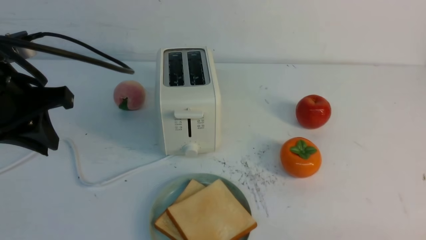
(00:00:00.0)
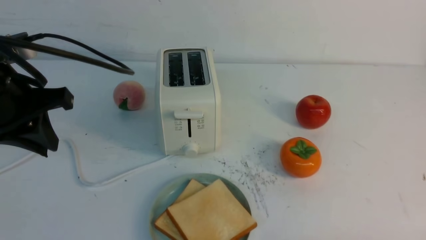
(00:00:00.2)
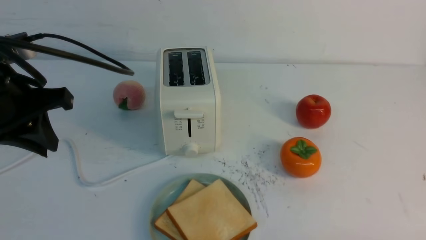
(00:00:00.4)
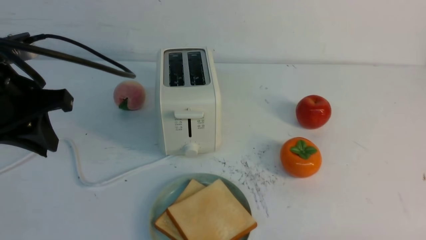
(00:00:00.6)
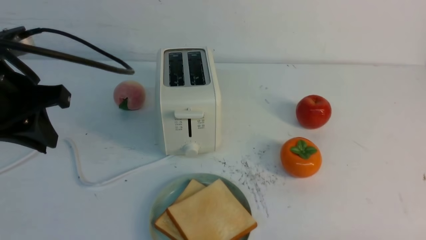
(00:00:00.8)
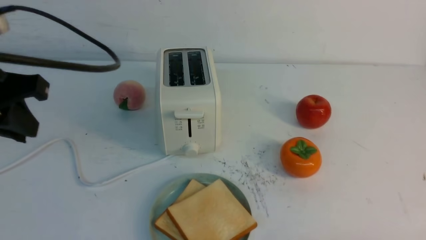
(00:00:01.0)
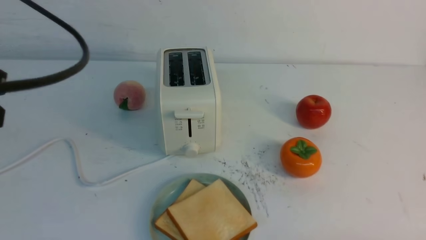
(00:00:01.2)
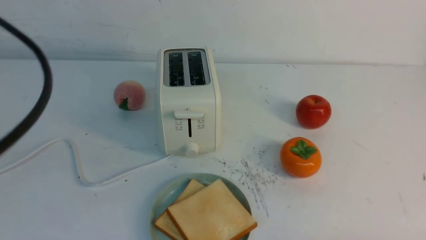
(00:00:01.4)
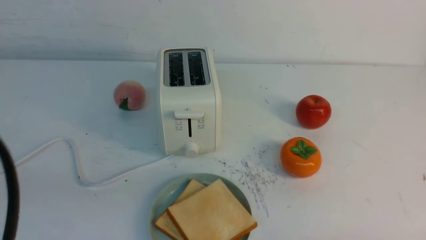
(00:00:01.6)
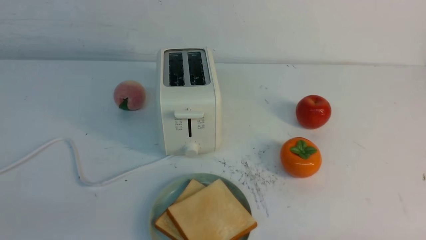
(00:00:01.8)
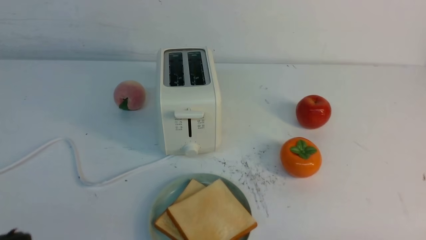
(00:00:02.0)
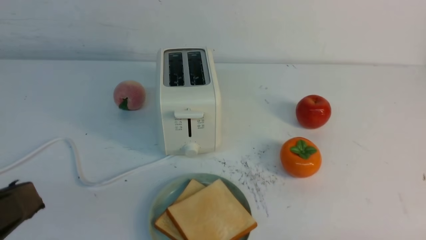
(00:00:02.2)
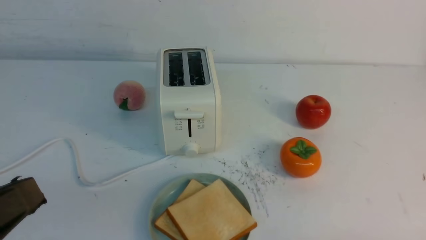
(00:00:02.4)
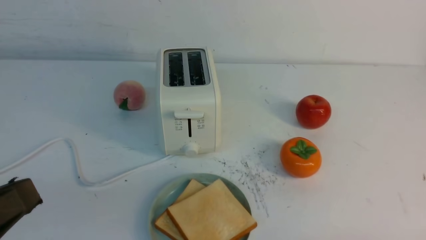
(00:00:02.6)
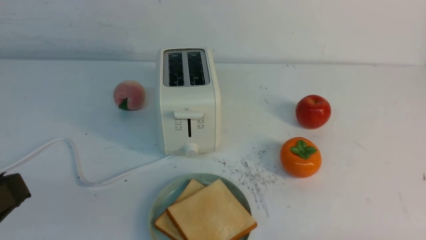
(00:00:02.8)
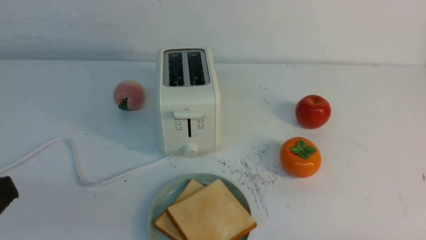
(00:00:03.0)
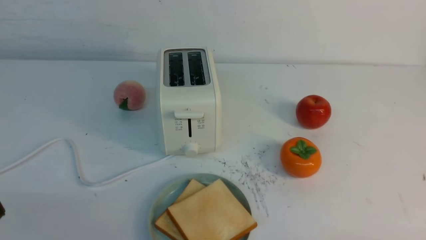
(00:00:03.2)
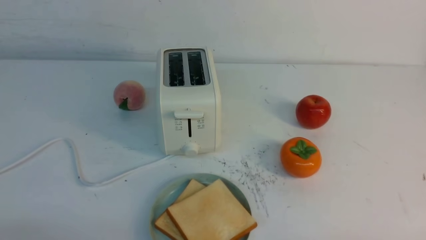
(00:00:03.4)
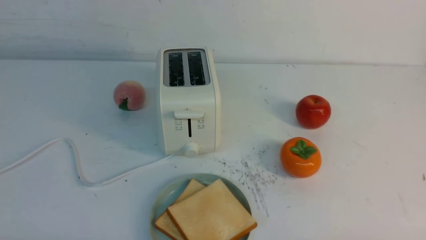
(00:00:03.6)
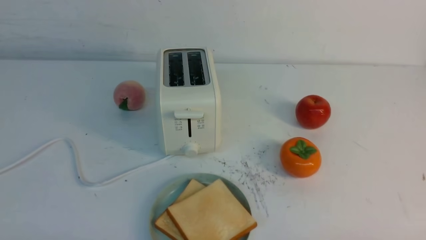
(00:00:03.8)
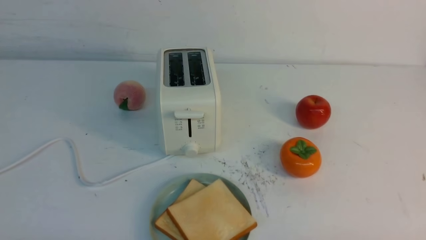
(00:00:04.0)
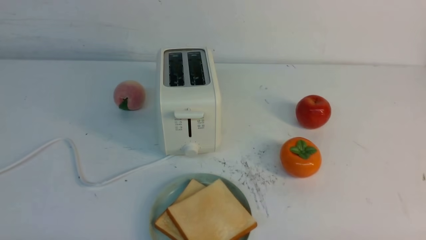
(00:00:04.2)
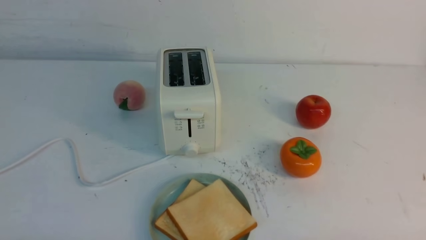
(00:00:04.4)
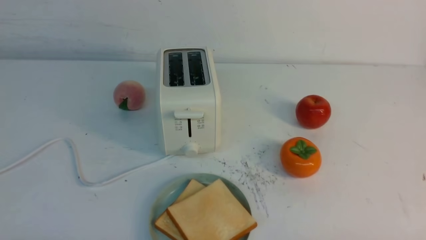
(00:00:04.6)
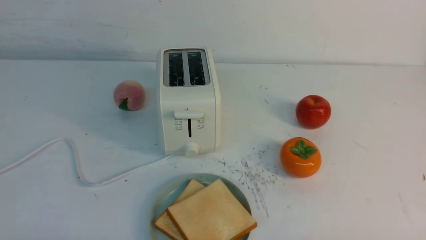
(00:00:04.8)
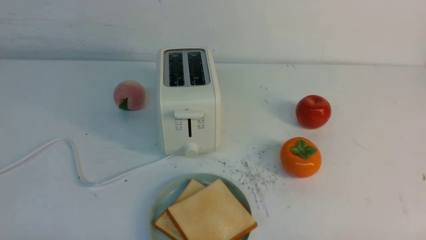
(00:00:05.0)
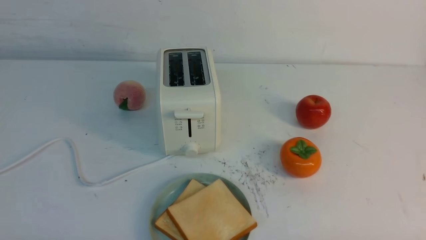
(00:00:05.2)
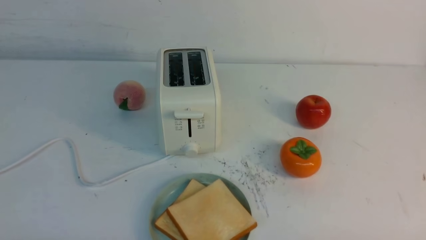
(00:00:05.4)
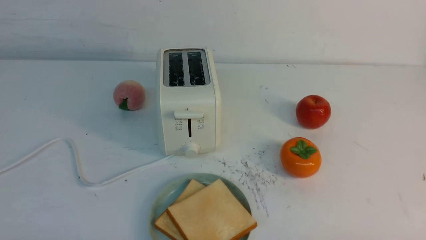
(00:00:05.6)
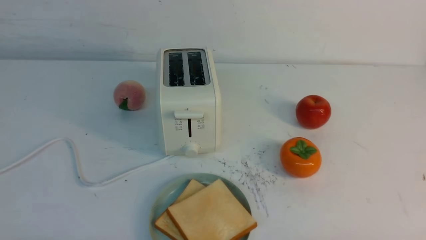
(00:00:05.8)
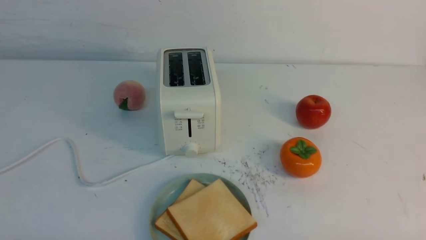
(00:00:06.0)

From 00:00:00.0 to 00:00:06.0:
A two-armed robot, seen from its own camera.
Task of the whole recording: take toasted bread from bread machine on white table place on plate.
From 00:00:00.0 to 00:00:01.6: The left gripper goes approximately 20 cm backward.
From 00:00:01.6 to 00:00:03.0: The left gripper goes roughly 10 cm downward.
From 00:00:04.4 to 00:00:06.0: The two grippers keep their place.
